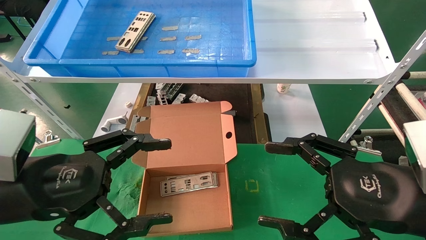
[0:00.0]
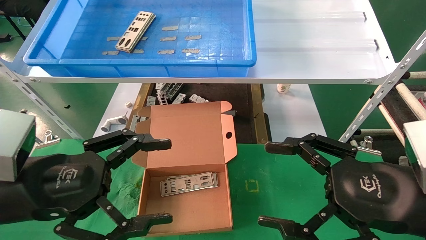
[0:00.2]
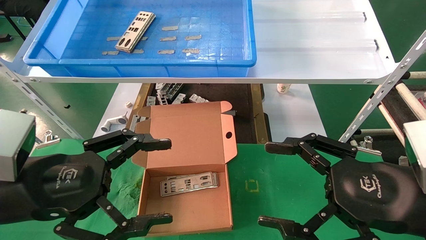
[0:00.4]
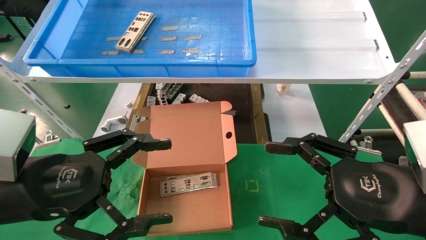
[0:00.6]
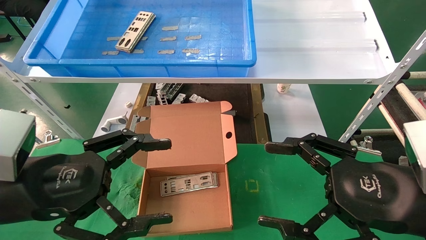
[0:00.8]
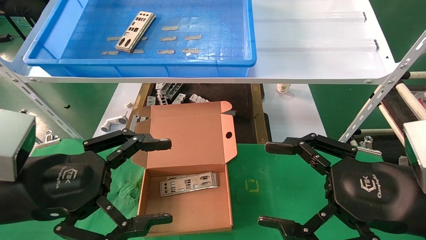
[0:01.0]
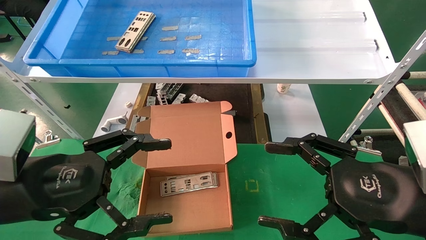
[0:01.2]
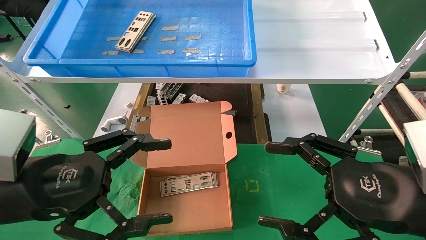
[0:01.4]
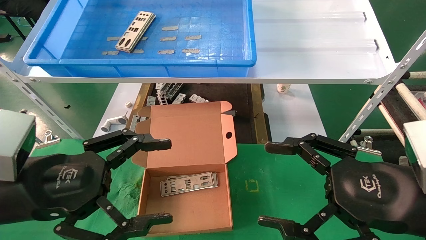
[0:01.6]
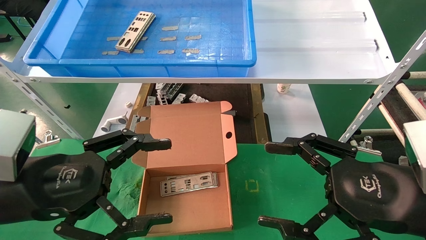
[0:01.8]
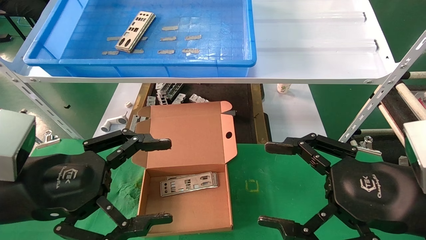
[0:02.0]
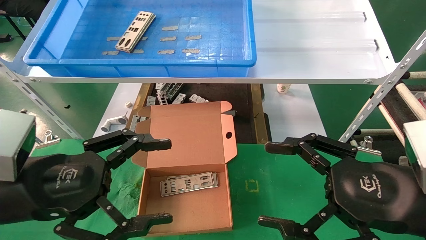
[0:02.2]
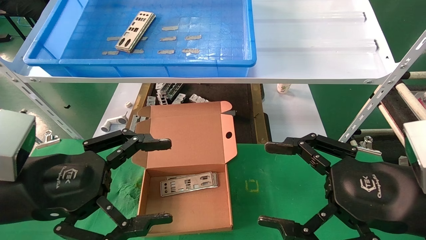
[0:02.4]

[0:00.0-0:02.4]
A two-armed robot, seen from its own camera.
Task of the whole recording: pick up the parts on the tray and put them in the cardboard box.
0:00.0 to 0:02.4: Neither gripper changes place.
